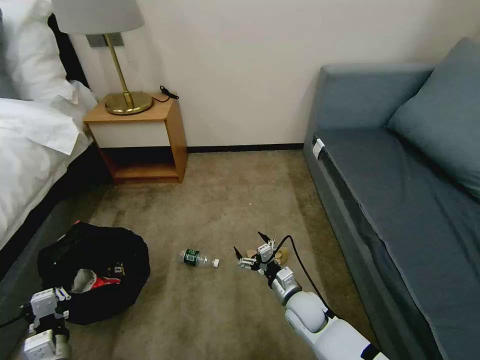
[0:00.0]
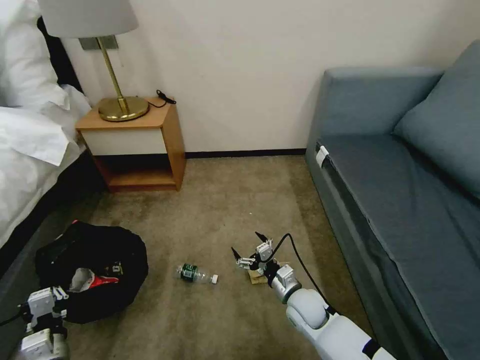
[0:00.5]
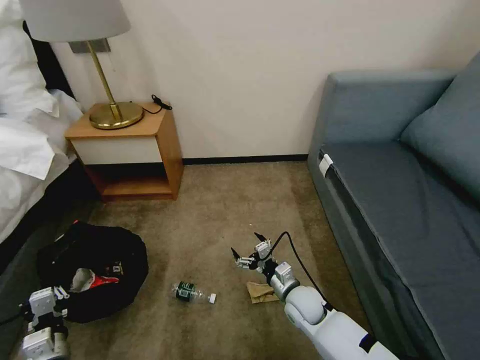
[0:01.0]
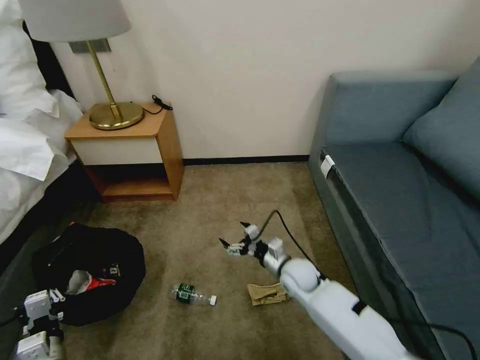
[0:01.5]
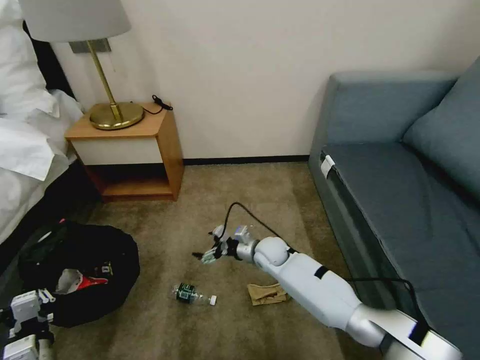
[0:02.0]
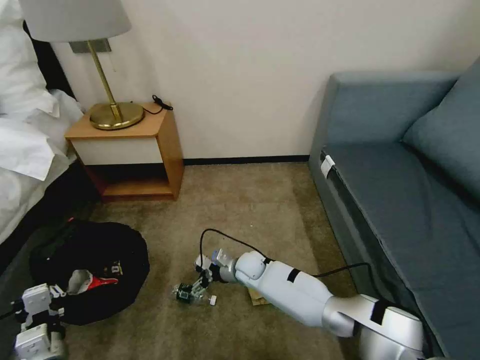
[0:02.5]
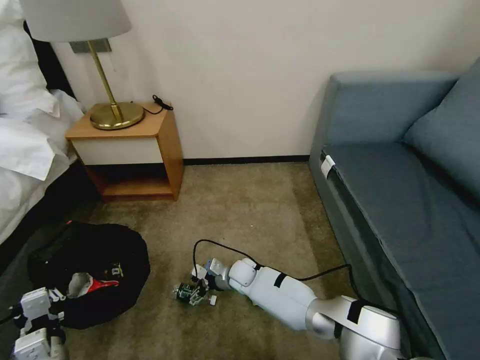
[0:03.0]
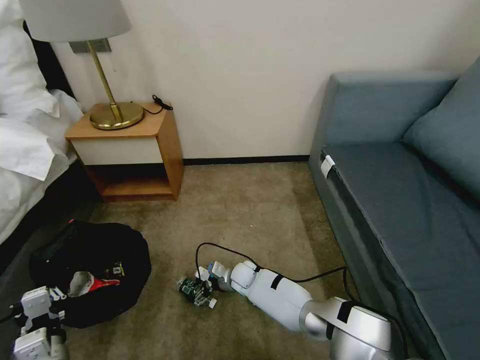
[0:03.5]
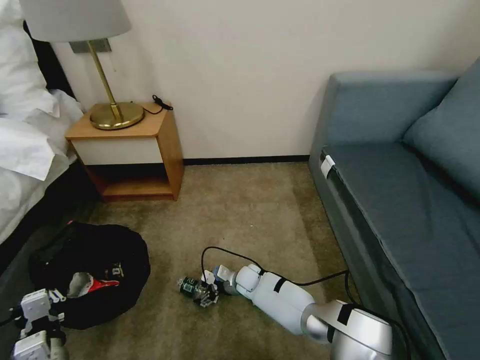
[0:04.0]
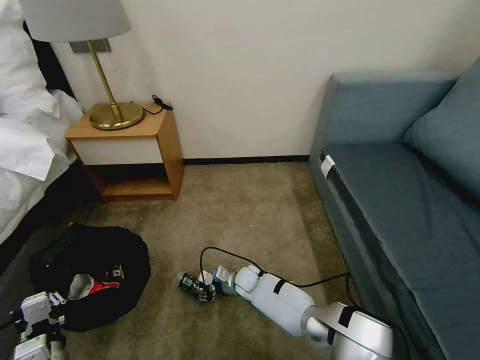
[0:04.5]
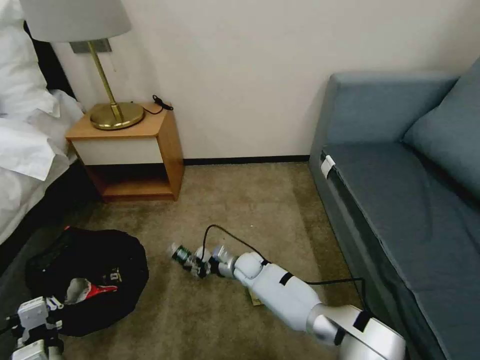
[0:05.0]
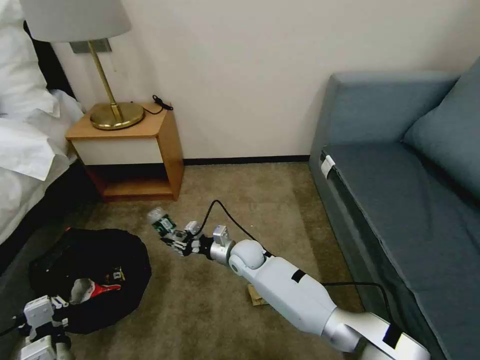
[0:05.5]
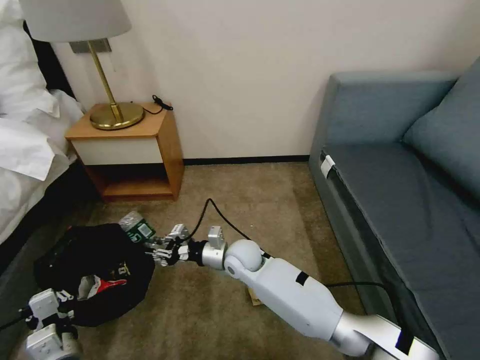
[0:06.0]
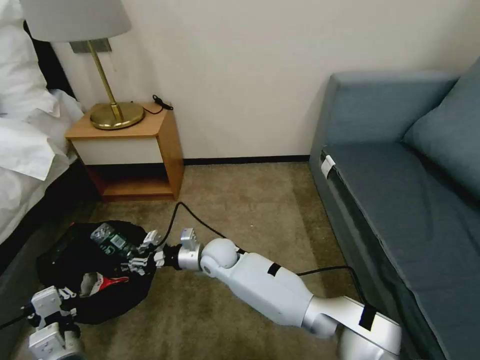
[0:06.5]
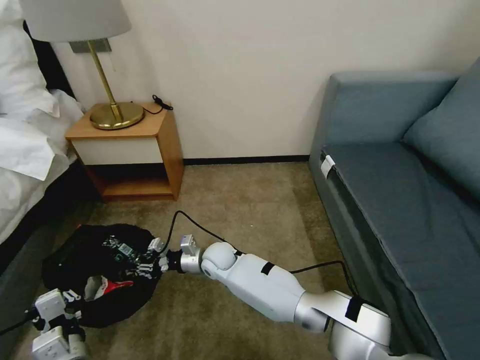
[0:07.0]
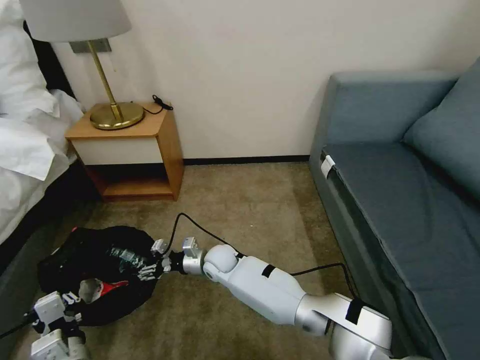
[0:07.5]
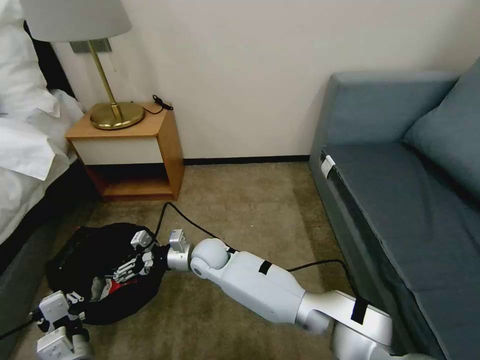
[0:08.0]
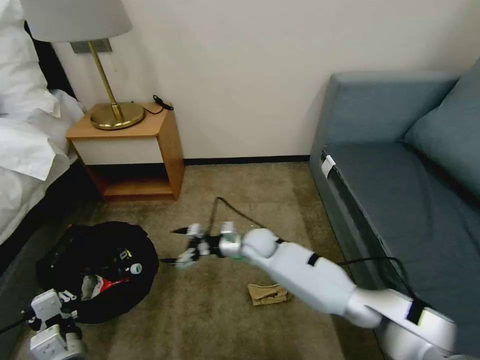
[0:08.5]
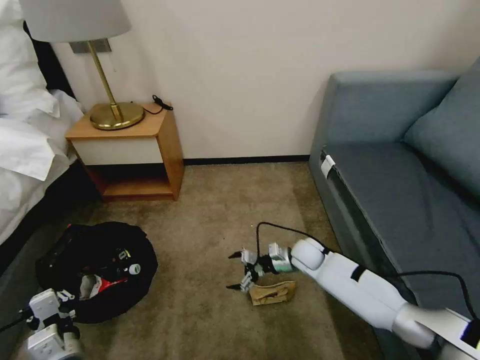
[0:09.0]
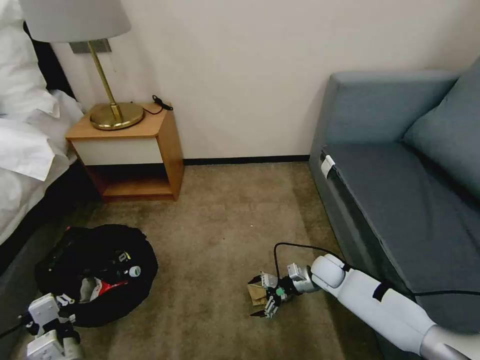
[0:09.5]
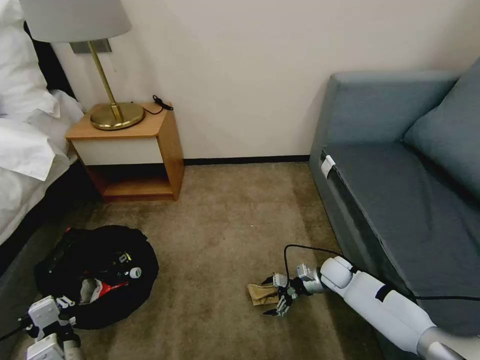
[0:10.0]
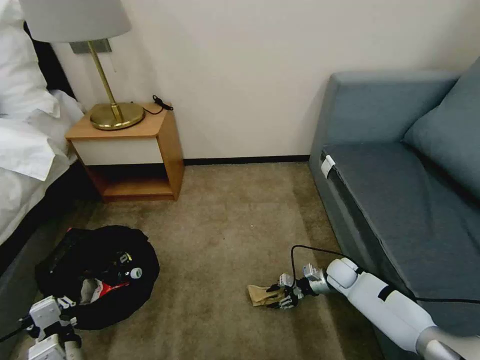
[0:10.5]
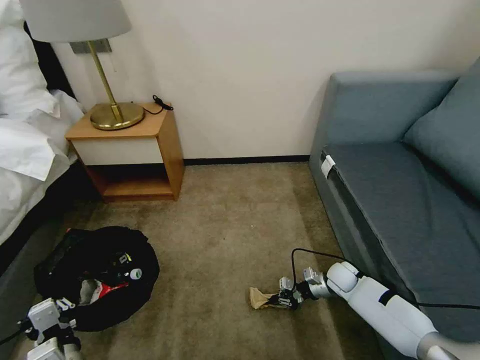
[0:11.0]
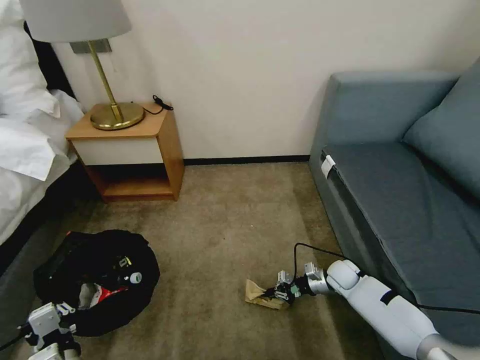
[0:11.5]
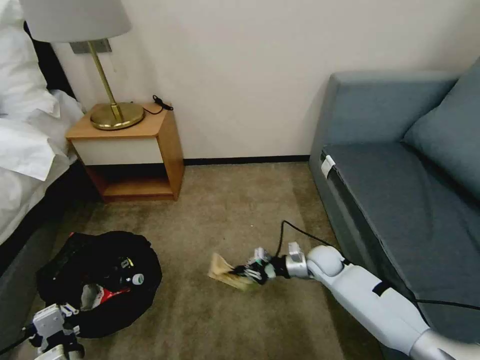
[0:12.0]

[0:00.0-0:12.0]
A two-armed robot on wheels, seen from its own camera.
Task of the whole recording: Pick up the trash bin, then pick up the garbage on the floor and place it into the trash bin.
0:00.0 to 0:02.0: The right gripper heads forward and to the left, covering roughly 15 cm.
0:02.0 to 0:04.0: The right gripper shifts about 15 cm downward and to the left.
0:04.0 to 0:06.0: The right gripper heads upward, covering approximately 20 cm, and closes up.
0:06.0 to 0:08.0: The right gripper travels to the left by some 10 cm, and opens up.
0:08.0 to 0:10.0: The right gripper heads to the right, covering approximately 40 cm.
0:10.0 to 0:12.0: The right gripper shifts about 10 cm upward and to the left, and closes up.

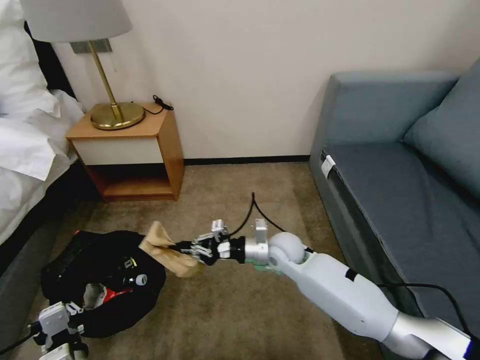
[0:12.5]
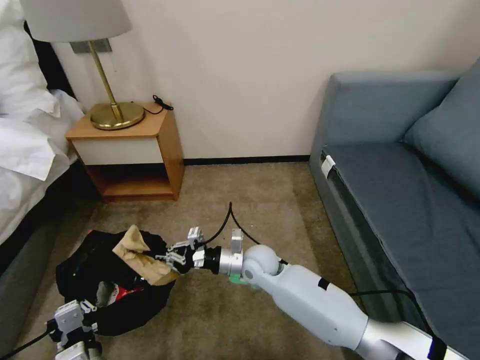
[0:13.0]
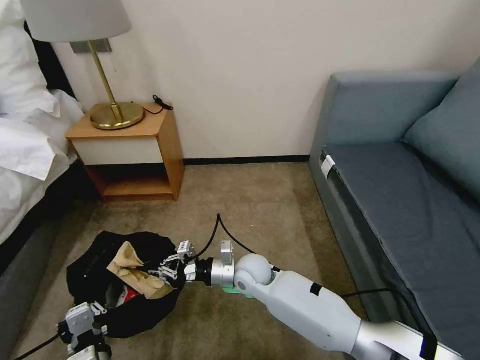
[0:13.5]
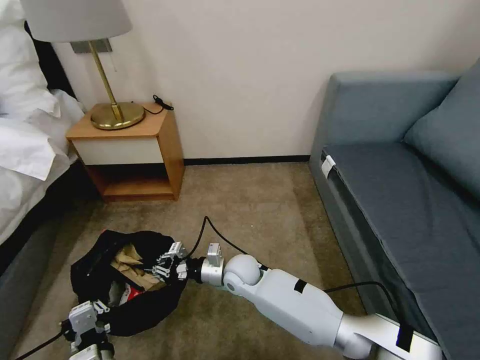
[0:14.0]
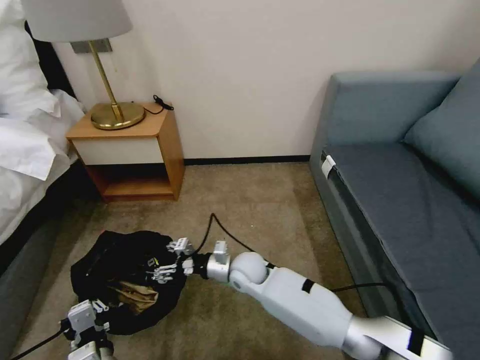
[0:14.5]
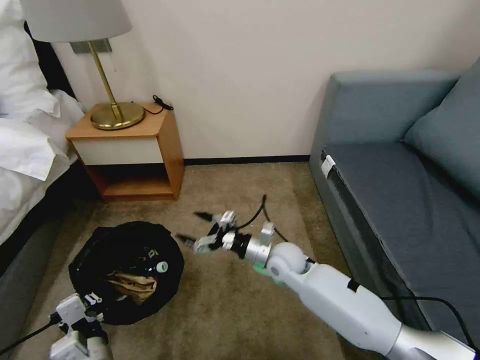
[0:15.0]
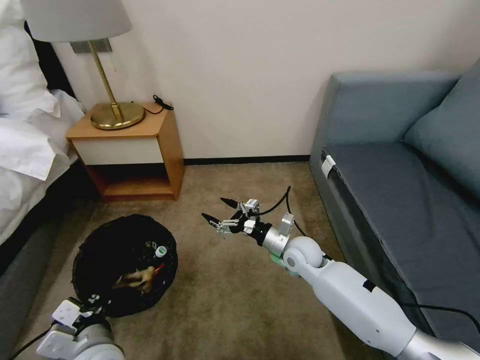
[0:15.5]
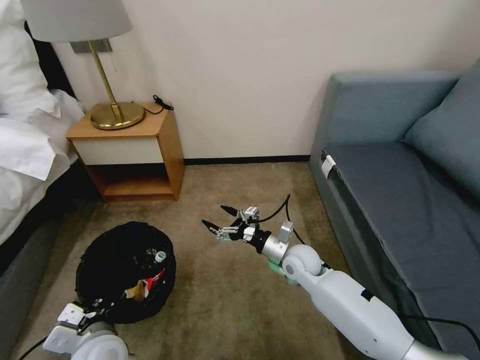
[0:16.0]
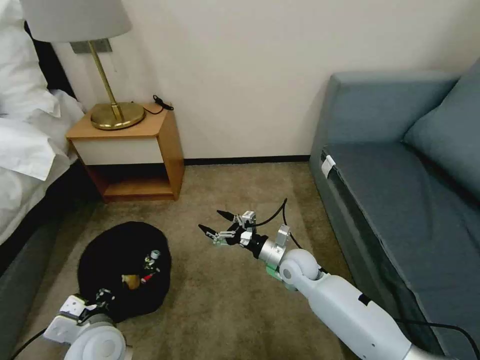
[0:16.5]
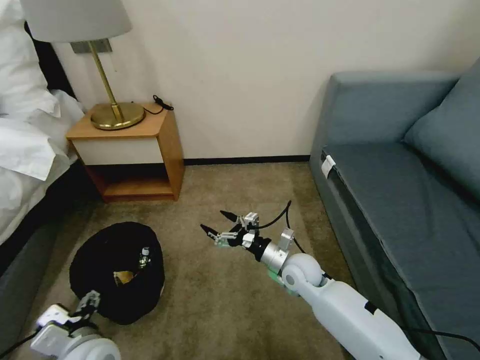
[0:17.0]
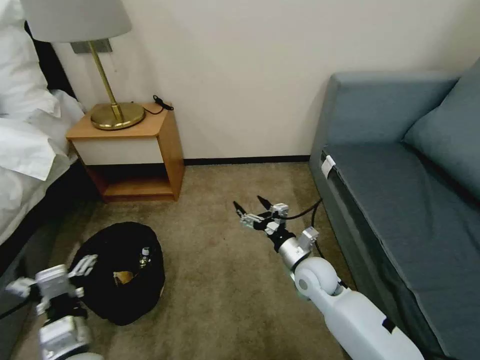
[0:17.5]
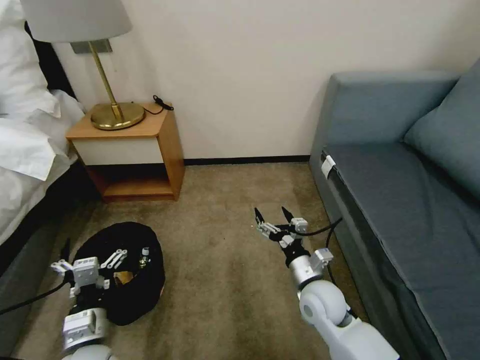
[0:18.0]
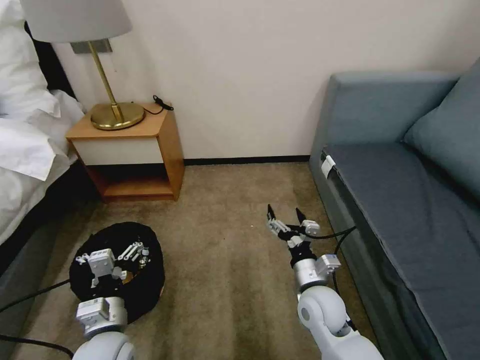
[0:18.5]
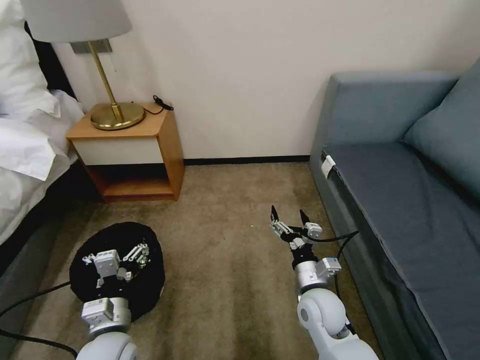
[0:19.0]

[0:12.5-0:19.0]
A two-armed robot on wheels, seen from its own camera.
Task of the whole recording: Pick up the trash bin, then pick up the garbage on the floor and place it into the trash bin.
0:12.5 to 0:14.5: The right gripper shifts about 10 cm to the left and downward, and opens its fingers.
0:14.5 to 0:17.0: The left gripper goes some 5 cm forward, and opens. Meanwhile the right gripper shifts about 15 cm to the right, and opens up.
0:17.0 to 0:19.0: The right gripper heads backward, covering roughly 10 cm.

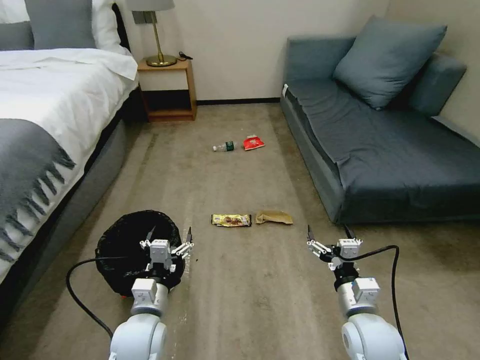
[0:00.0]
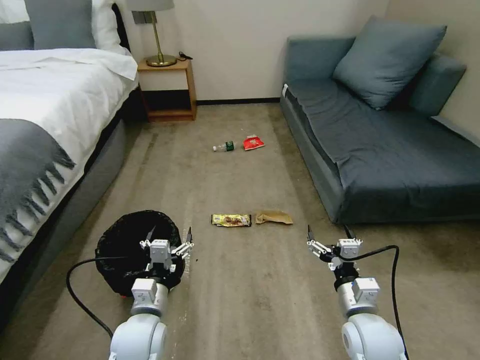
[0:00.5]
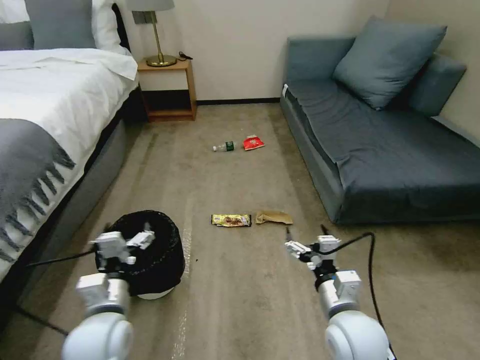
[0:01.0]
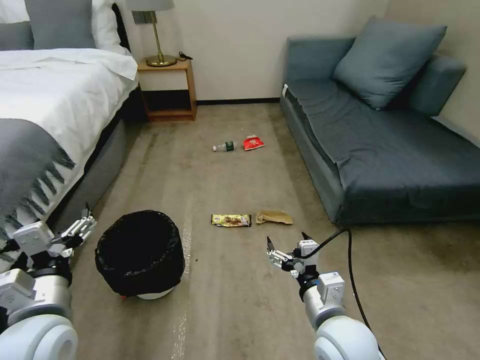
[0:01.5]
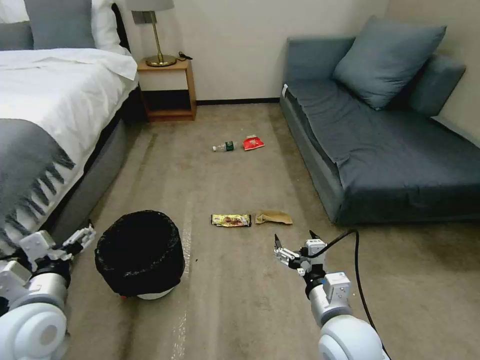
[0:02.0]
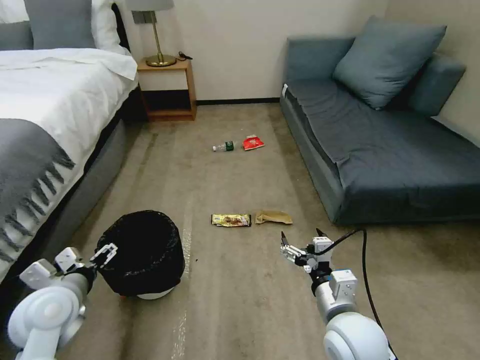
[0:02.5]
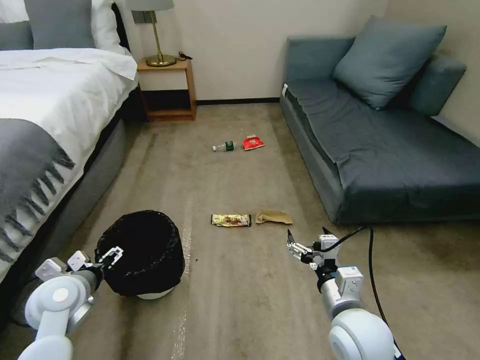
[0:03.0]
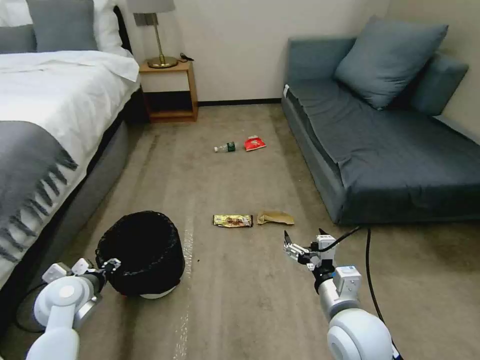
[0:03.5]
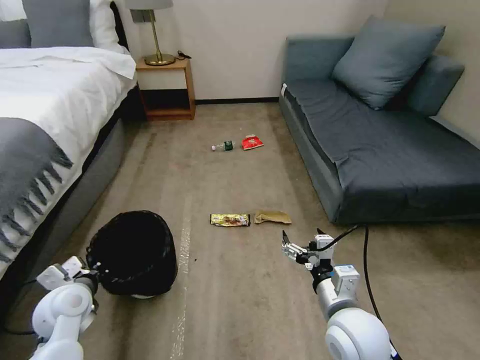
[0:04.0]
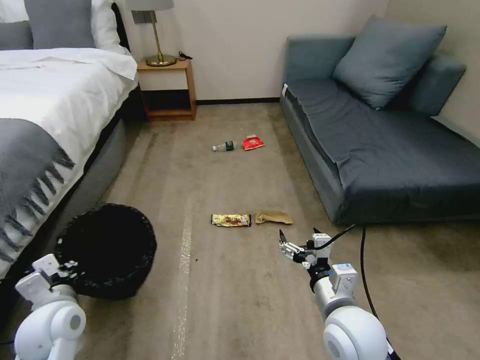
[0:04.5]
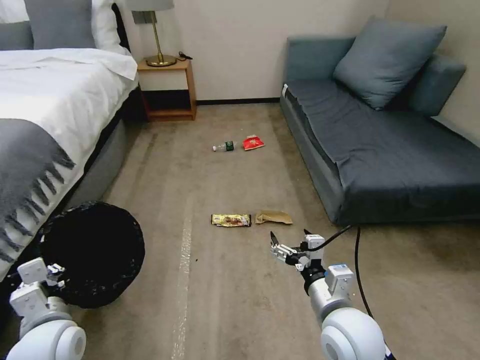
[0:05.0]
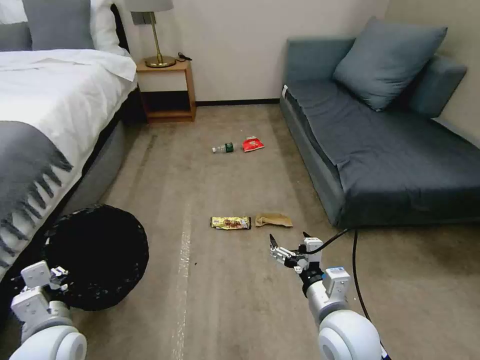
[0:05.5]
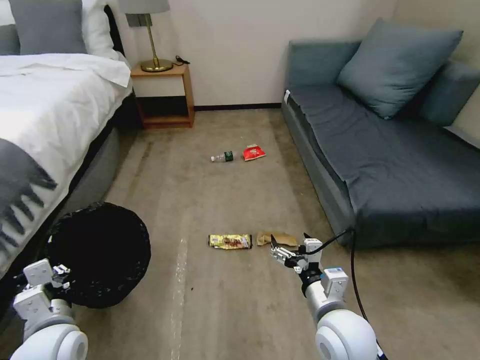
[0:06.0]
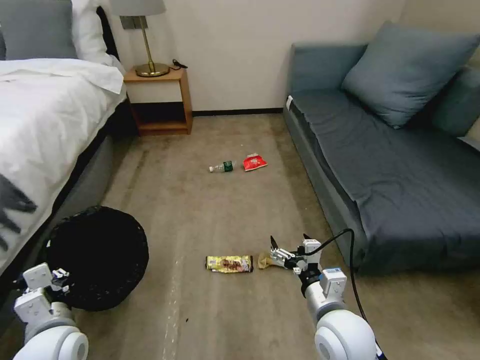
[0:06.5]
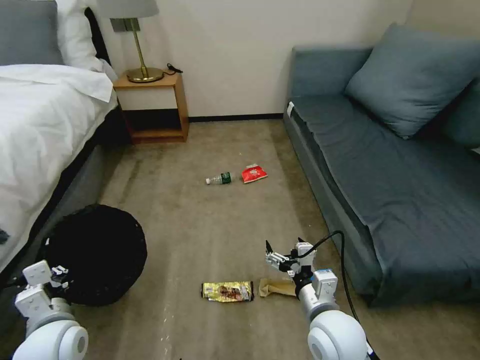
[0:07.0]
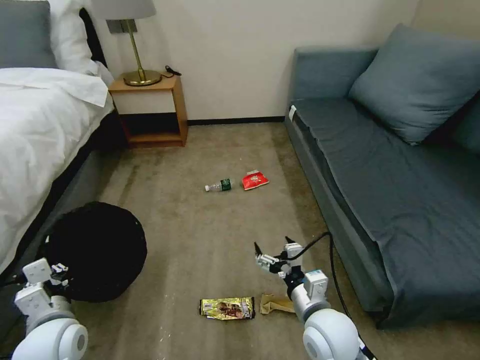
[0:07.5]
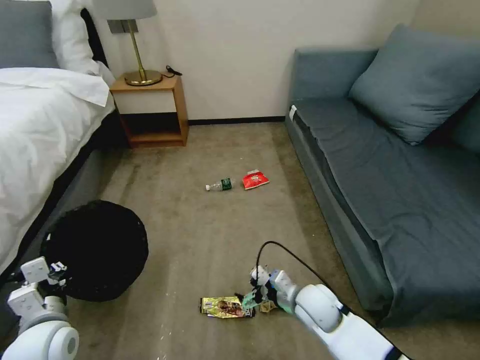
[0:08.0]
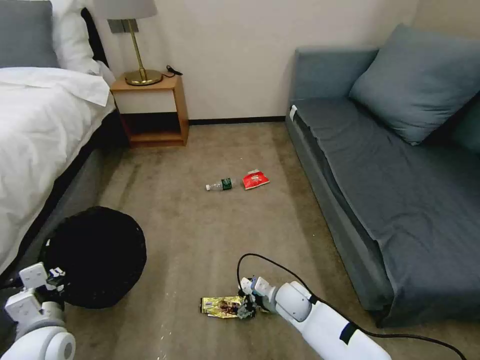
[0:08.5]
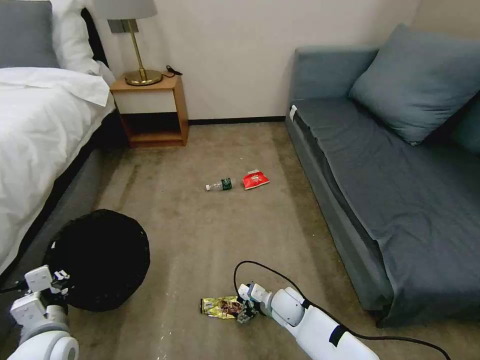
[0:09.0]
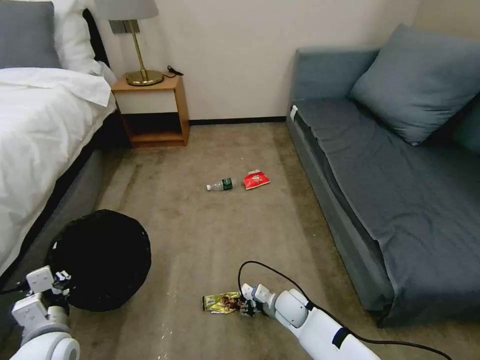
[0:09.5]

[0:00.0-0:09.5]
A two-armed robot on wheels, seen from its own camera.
Task of the whole recording: Pick up the trash bin, then pick up the garbage on the floor and place it into the trash bin.
0:02.0 to 0:04.0: The left gripper heads downward and forward, covering roughly 15 cm, and closes.
0:04.0 to 0:05.5: The left gripper travels backward by approximately 10 cm.
0:07.5 to 0:09.5: The right gripper is displaced downward and forward by about 20 cm, and closes up.
